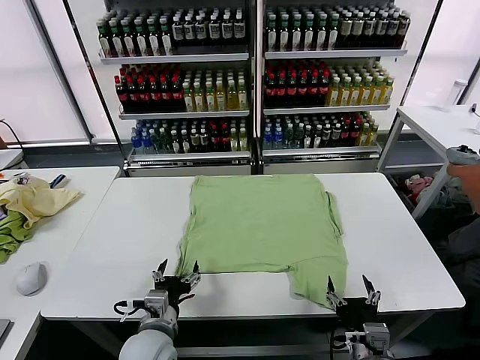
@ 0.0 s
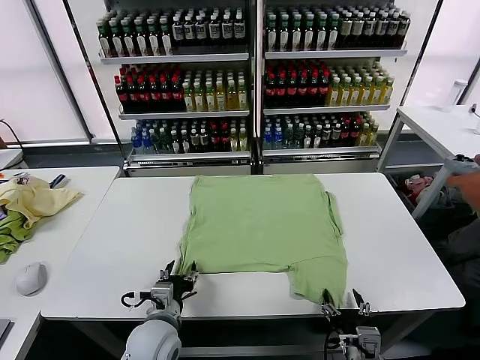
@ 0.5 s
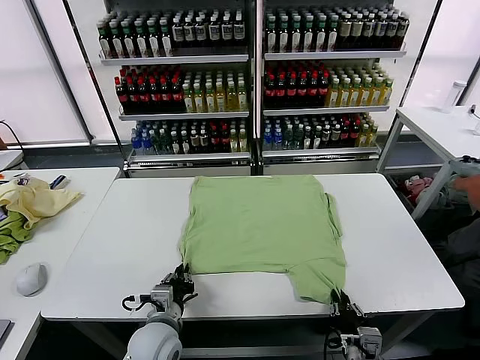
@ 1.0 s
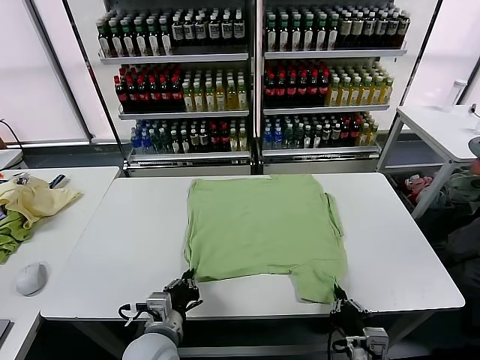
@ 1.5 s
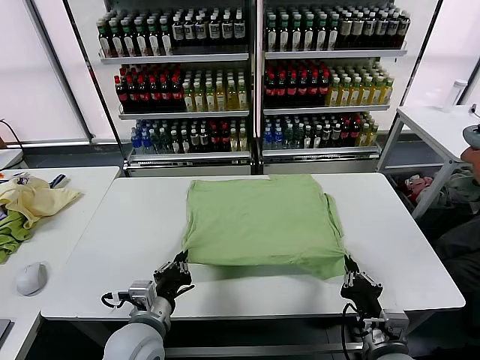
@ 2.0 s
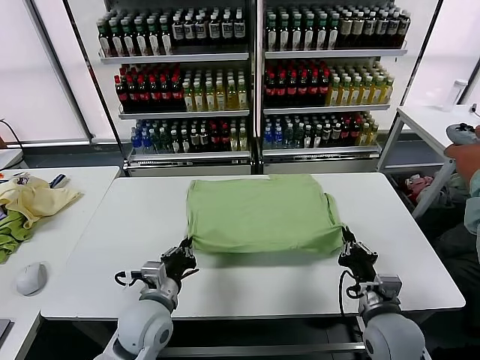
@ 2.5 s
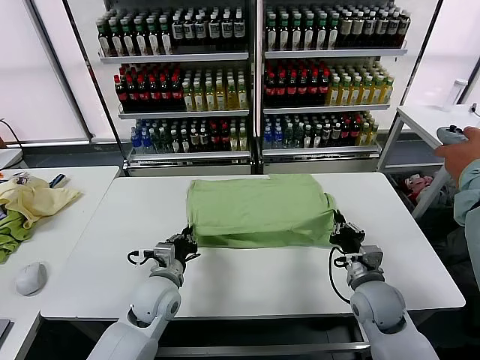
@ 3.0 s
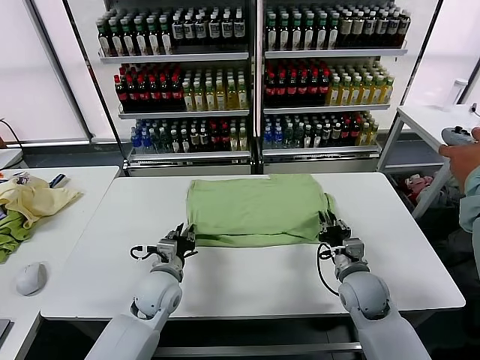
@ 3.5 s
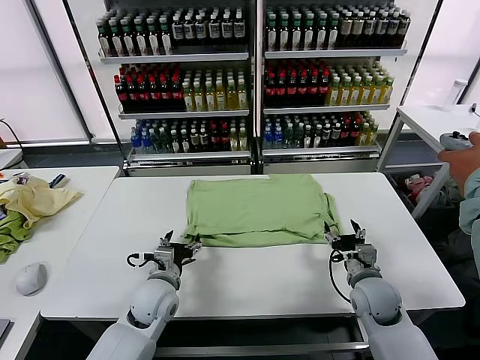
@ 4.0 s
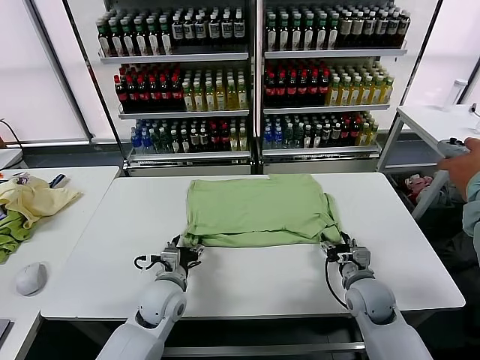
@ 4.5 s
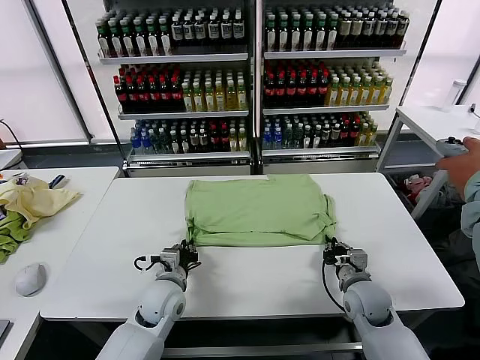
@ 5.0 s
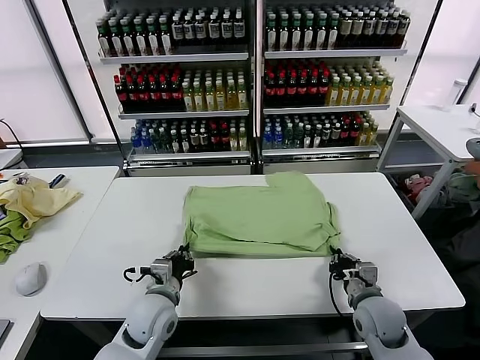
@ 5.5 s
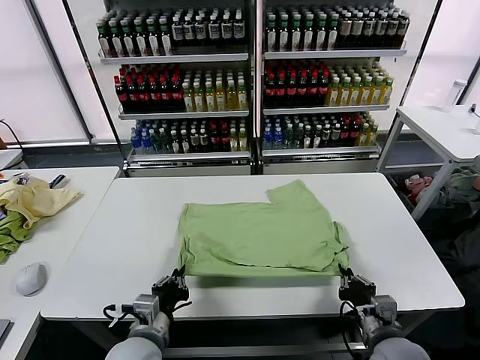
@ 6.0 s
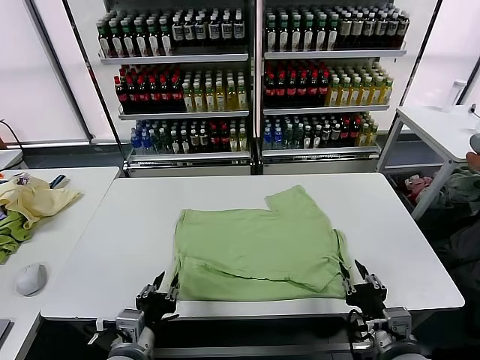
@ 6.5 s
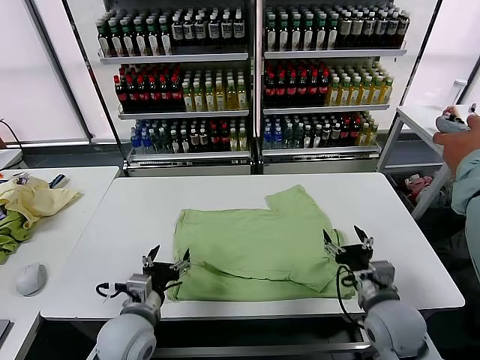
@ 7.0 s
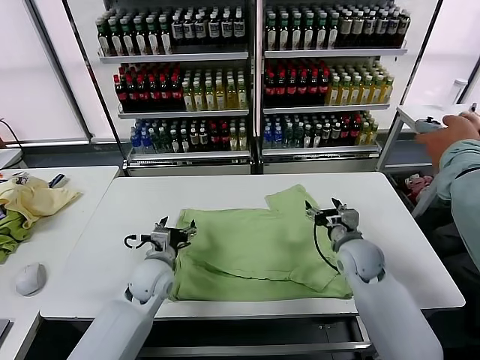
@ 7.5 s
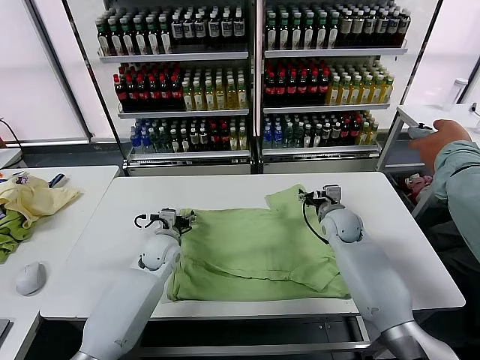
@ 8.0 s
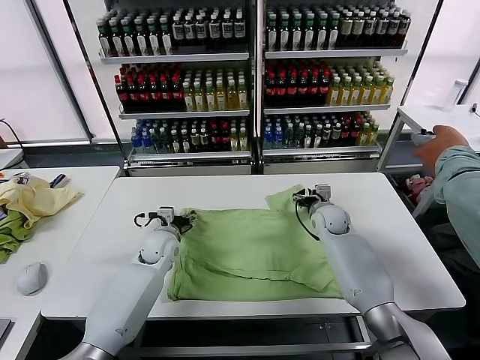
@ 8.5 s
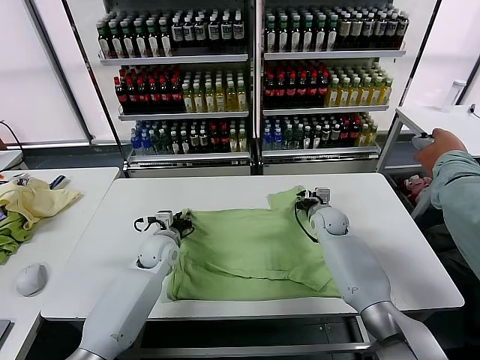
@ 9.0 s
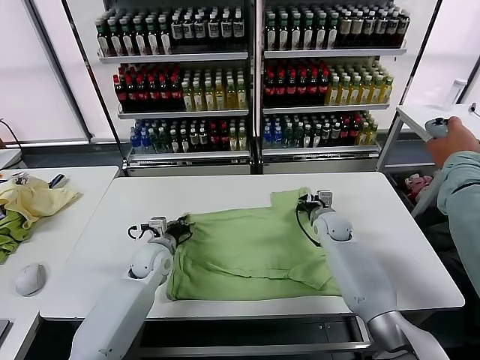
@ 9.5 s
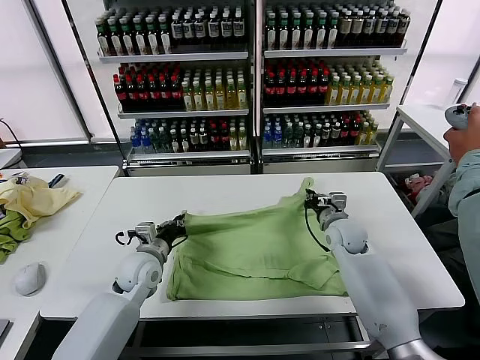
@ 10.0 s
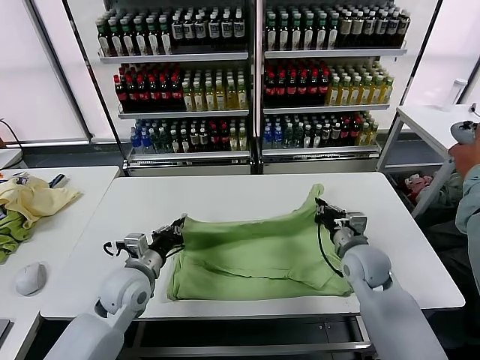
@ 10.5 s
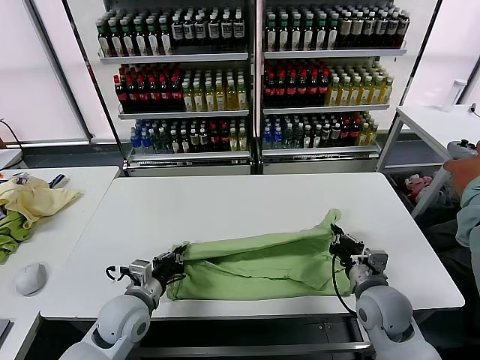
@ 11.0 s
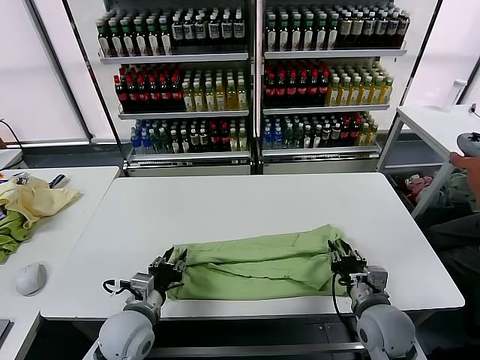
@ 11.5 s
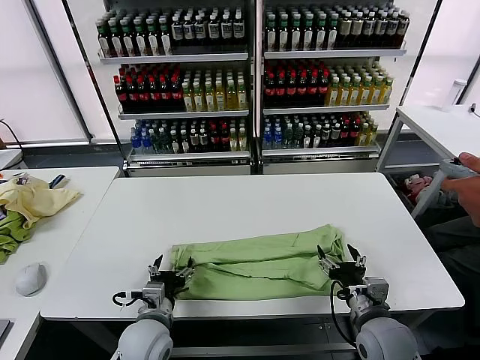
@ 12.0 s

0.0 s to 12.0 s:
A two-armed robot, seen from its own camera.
Task of the whole recording: fold and organize the clothes.
Step, 0.0 to 1.0 s: use both grippers simultaneously to clamp the lower edge of the clothing fabric.
Step, 1.5 to 3.5 s: use both grippers to drag the lower edge of the fabric forward and fold it over the upper edge.
Step, 4.0 to 6.5 s: Drag the clothes downward with both gripper.
Step, 7.0 to 9.0 s: use both grippers simultaneously to clamp the upper edge of the clothing fabric.
Step, 9.5 to 11.5 s: use both grippers to drag the upper edge of the fabric backward and fold it over the lower edge.
2.0 to 4.0 s: The left gripper shifts roughly 10 cm forward and downward, and opens its fingers. Meanwhile the right gripper shifts roughly 15 cm forward, and opens up.
4.0 to 6.0 s: Both grippers move backward, some 15 cm. The right gripper closes its fingers, while the left gripper closes its fingers.
6.0 to 8.0 s: Both grippers travel together forward, about 30 cm. The left gripper opens, while the right gripper opens up.
8.0 to 10.0 s: The two grippers go roughly 5 cm backward. The left gripper closes, while the right gripper closes up.
10.0 to 12.0 s: The right gripper travels backward by approximately 25 cm, and opens. Meanwhile the left gripper moves backward, approximately 15 cm, and opens its fingers.

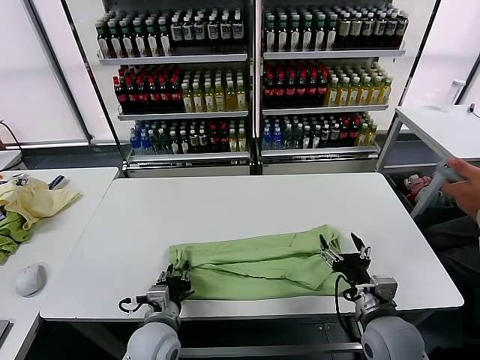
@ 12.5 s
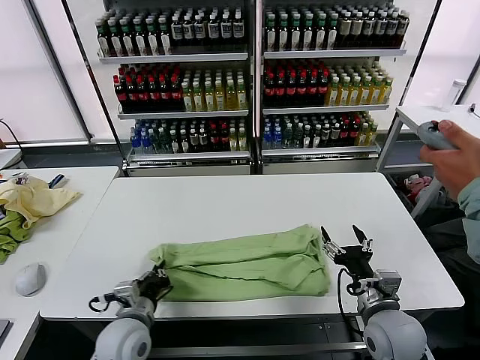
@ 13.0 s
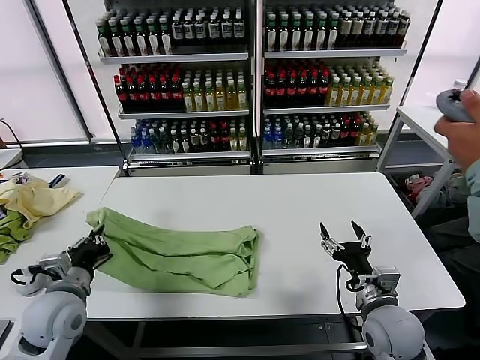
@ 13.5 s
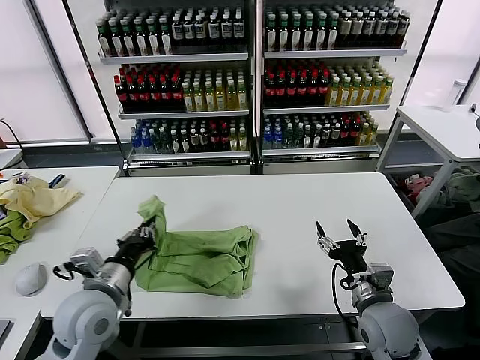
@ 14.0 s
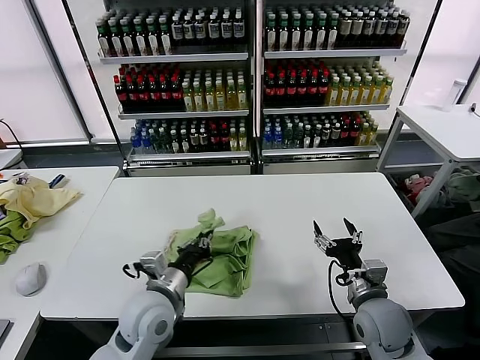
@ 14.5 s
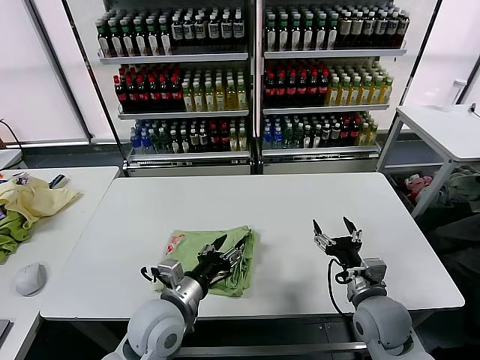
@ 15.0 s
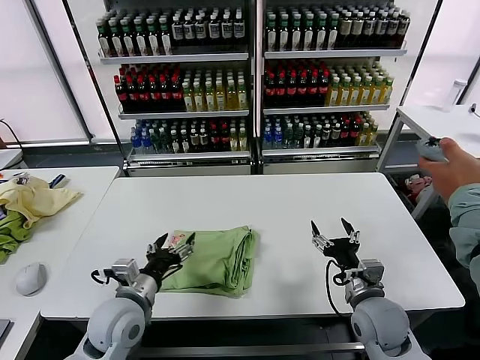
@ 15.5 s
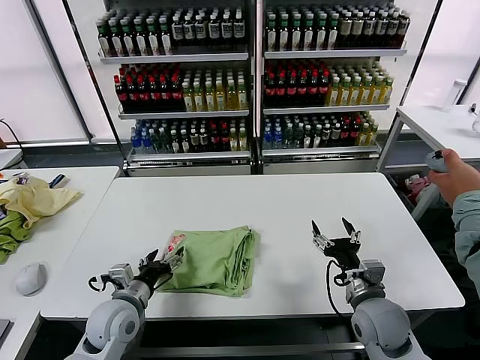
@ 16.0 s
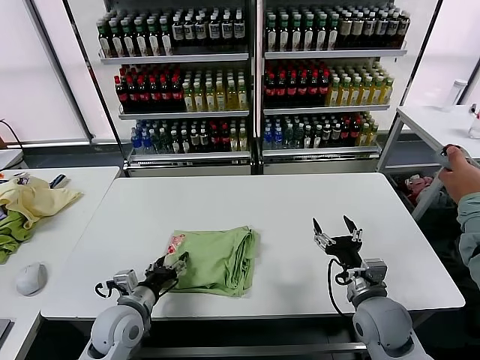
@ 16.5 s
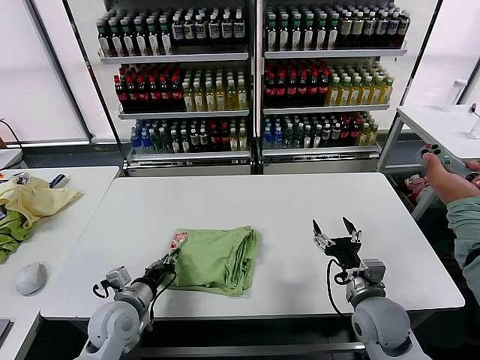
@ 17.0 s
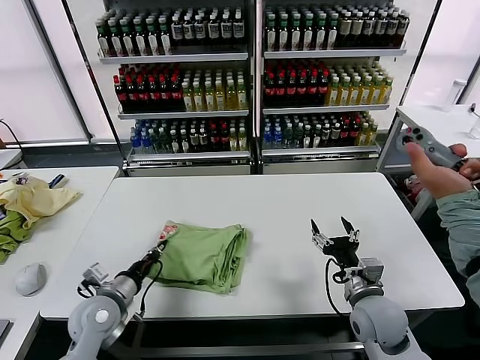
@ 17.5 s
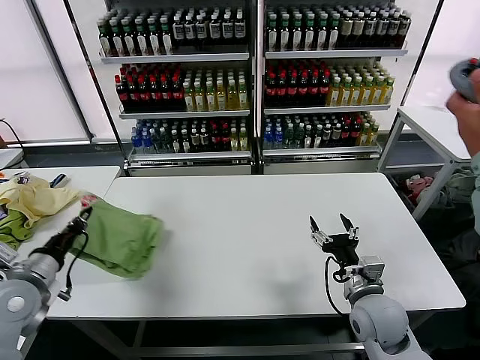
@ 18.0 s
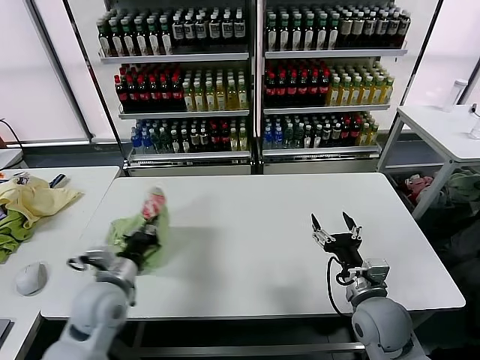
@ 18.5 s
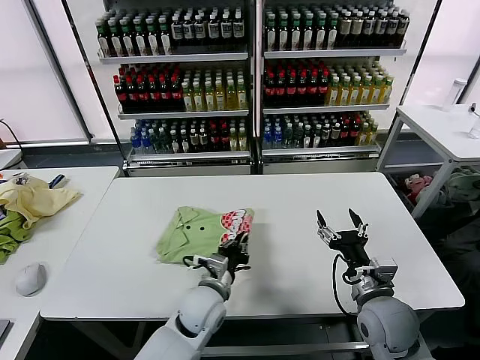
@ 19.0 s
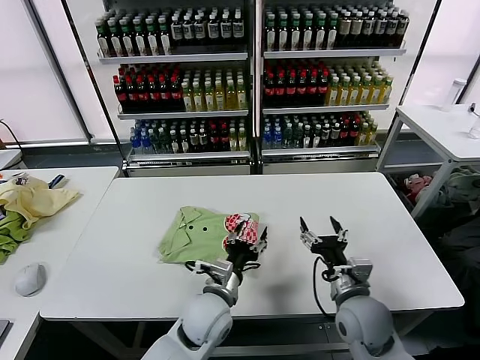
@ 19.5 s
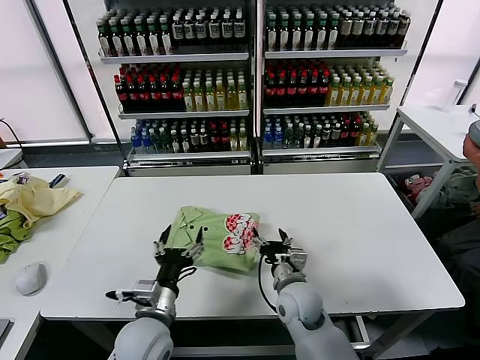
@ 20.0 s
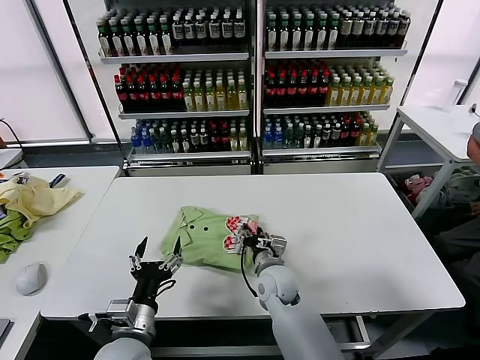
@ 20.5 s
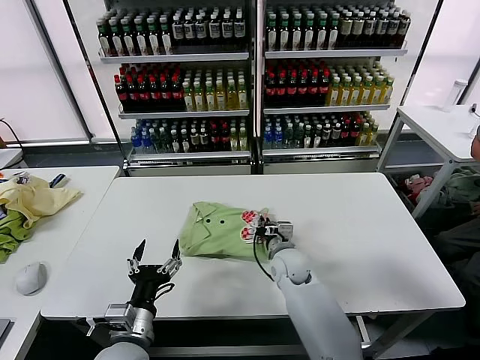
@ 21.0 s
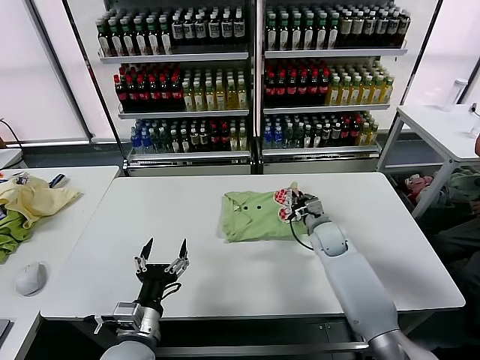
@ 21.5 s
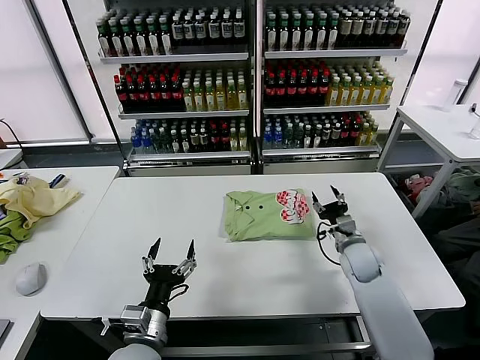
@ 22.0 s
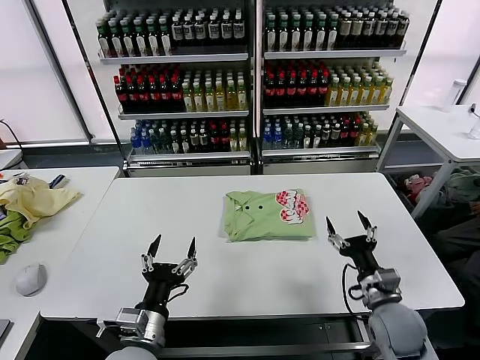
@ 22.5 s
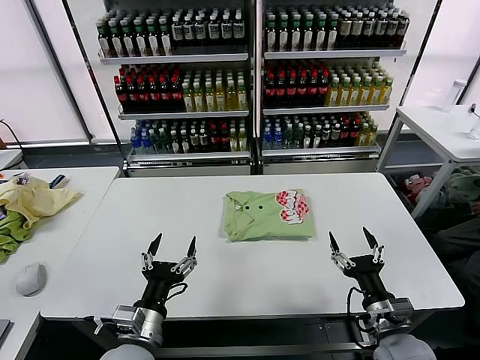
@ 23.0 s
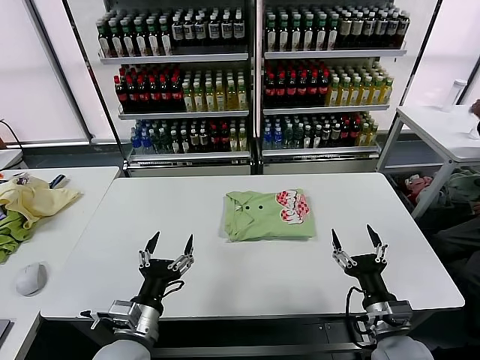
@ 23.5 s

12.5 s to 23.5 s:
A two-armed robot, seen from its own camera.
Task of the whole recording: fold and organize the clothes.
Step, 13.0 to 14.5 s: use the left gripper to drag the left edge of the fabric to the left and folds it over the right edge.
Step, 15.5 to 19.0 s: Flip the folded clothes over with left gripper.
Step, 19.5 to 21.5 s: Drag the clothes to the center of the table.
12.5 to 14.5 s: The left gripper is displaced upward by approximately 10 cm, and goes to the left and returns, about 15 cm each way.
14.5 to 16.0 s: The left gripper travels to the left and downward by about 10 cm, and opens.
16.0 to 18.0 s: The left gripper is displaced to the left and upward by about 20 cm, and closes up.
18.0 to 20.0 s: The left gripper travels to the right by roughly 25 cm, and opens its fingers; the right gripper moves to the left, approximately 15 cm.
20.0 to 21.5 s: The right gripper goes some 20 cm forward and to the right, and closes, while the left gripper ends up some 5 cm from where it was.
21.5 to 23.5 s: The right gripper shifts about 30 cm backward, and opens up.

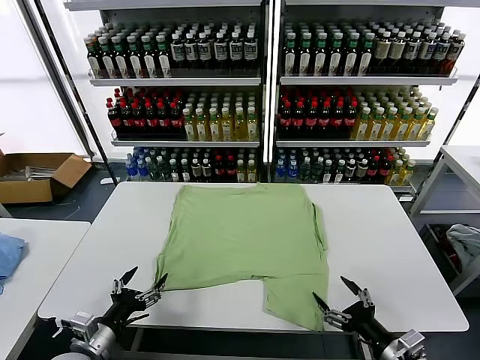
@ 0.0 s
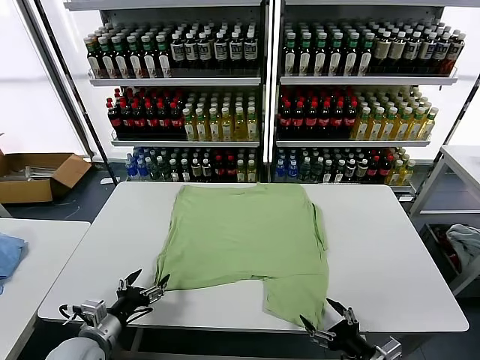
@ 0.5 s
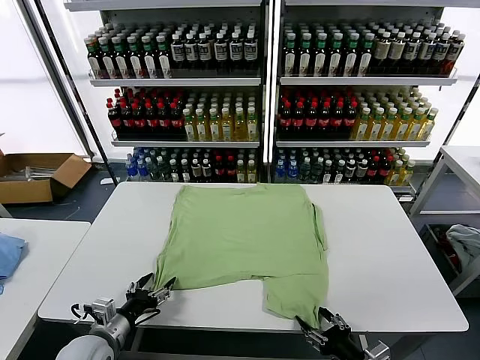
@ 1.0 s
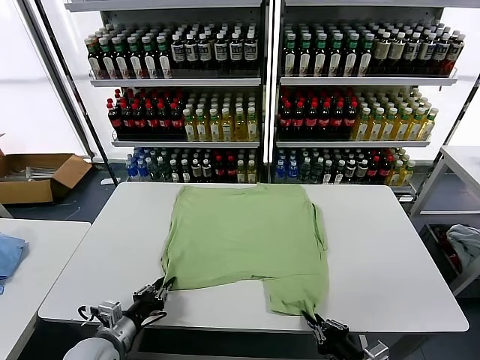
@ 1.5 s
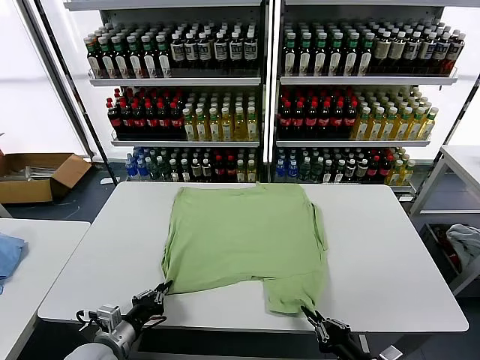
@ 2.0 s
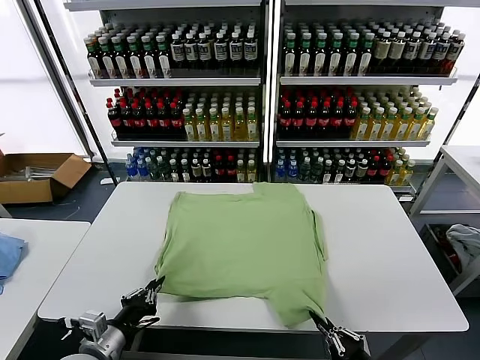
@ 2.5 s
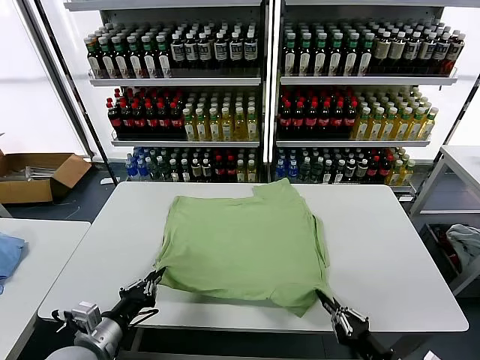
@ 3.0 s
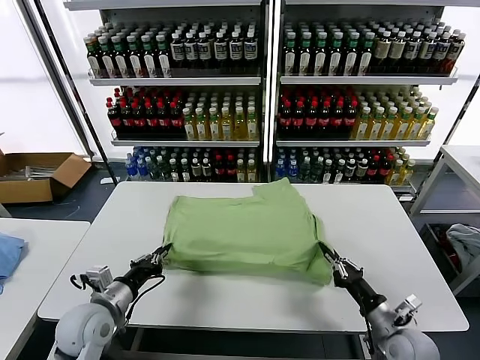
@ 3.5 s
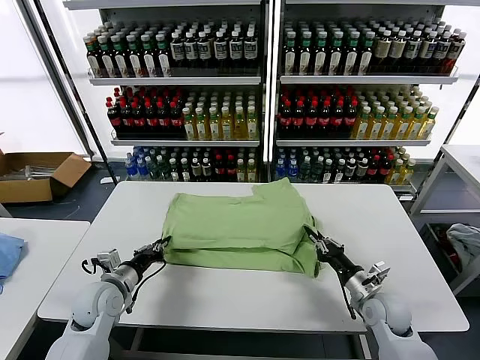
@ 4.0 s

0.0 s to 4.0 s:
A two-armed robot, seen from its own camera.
Task of the whole recording: fold and organize the clothes.
Step, 0.0 to 1.5 s: use both grippers simultaneously to clamp the lower edge of the clothing fabric.
2.0 to 4.0 s: The left gripper is displaced forward by roughly 10 cm, while the right gripper shifts roughly 20 cm forward.
